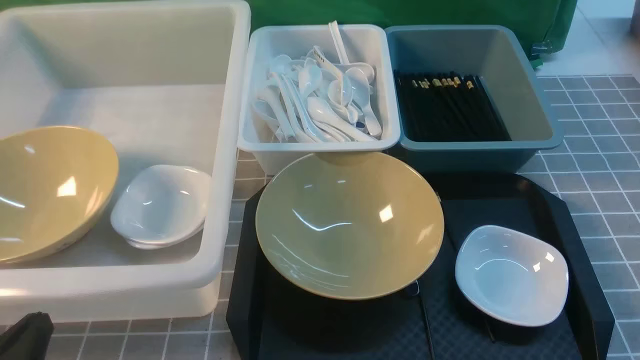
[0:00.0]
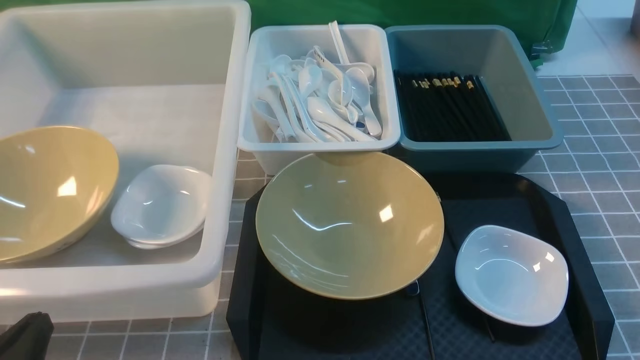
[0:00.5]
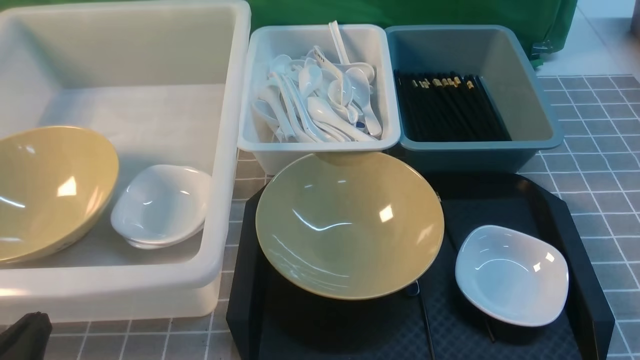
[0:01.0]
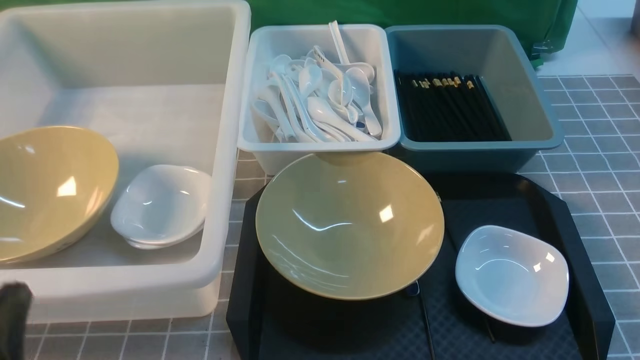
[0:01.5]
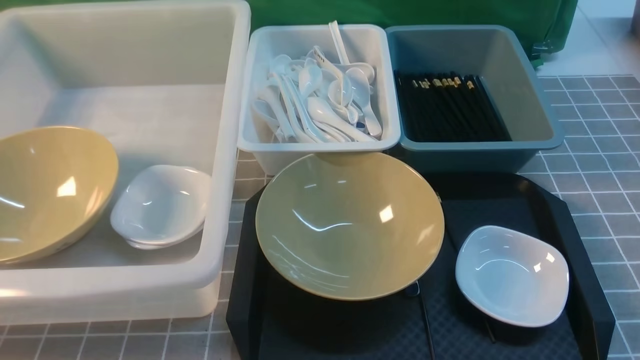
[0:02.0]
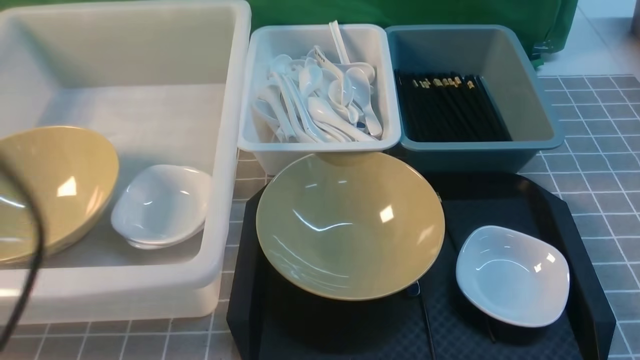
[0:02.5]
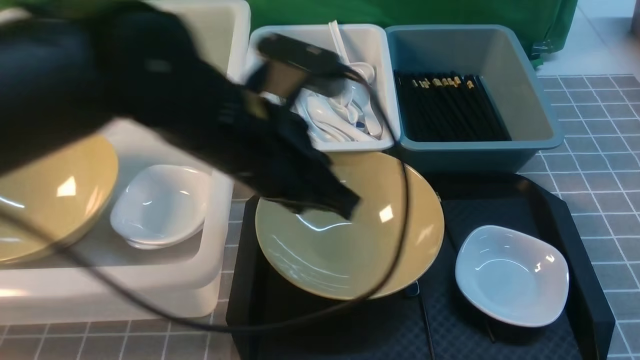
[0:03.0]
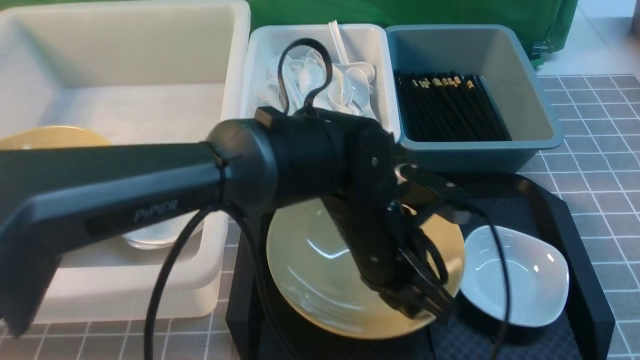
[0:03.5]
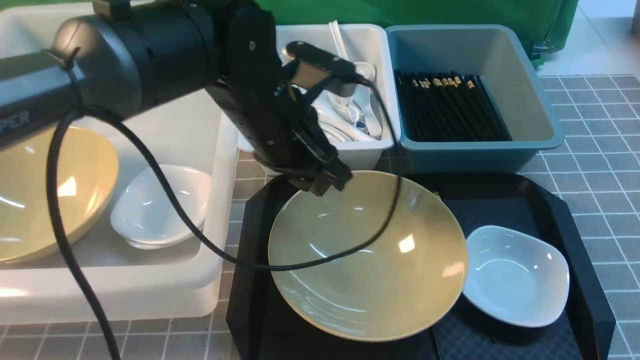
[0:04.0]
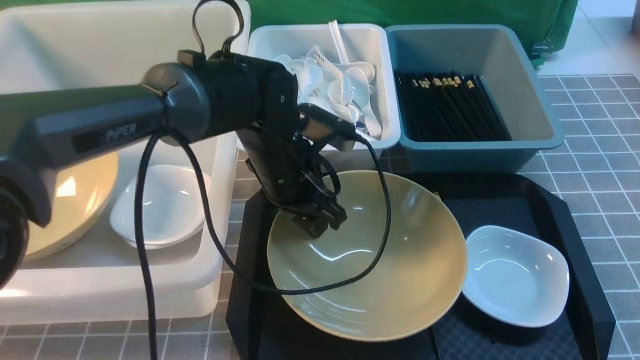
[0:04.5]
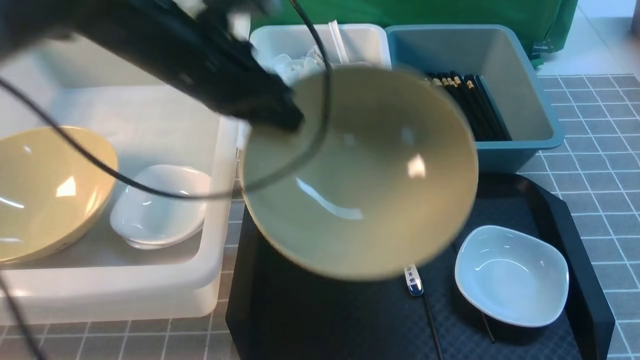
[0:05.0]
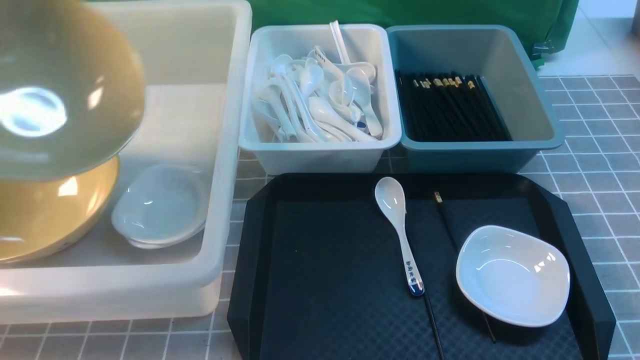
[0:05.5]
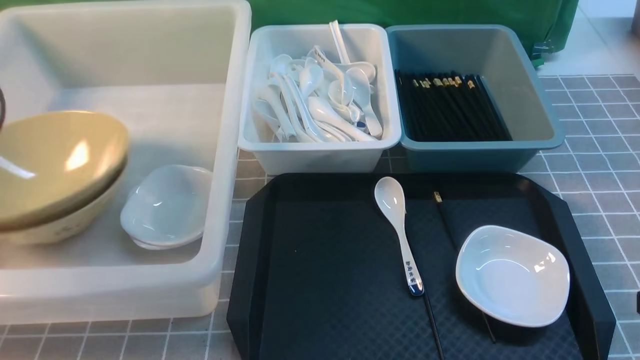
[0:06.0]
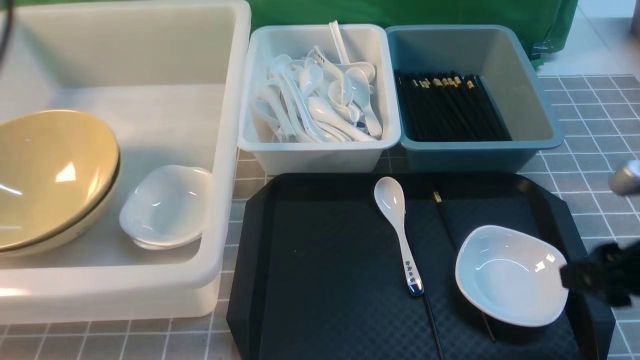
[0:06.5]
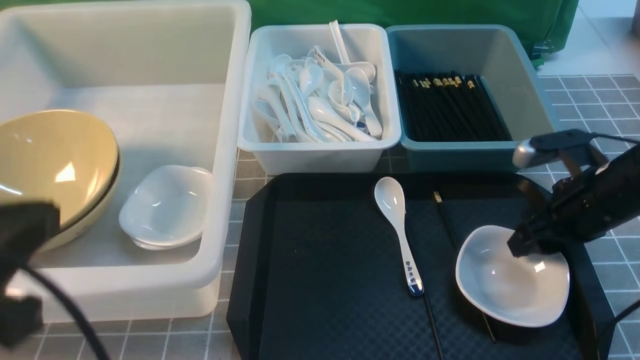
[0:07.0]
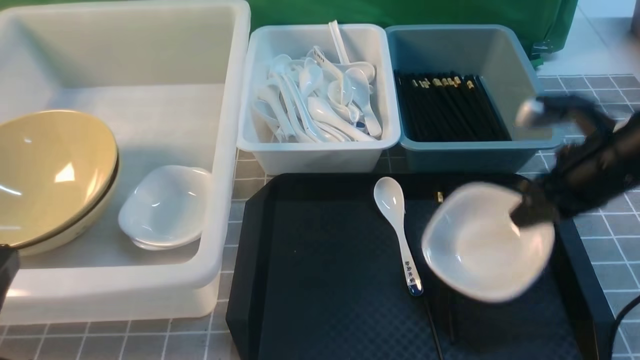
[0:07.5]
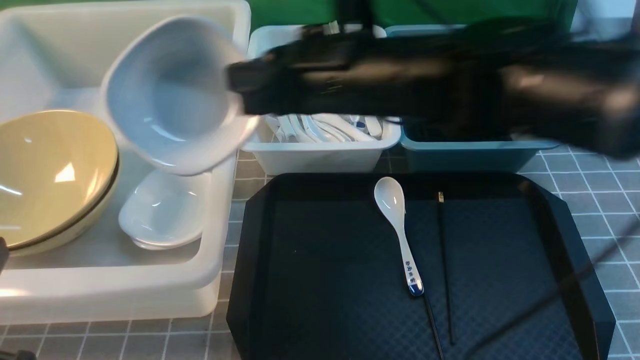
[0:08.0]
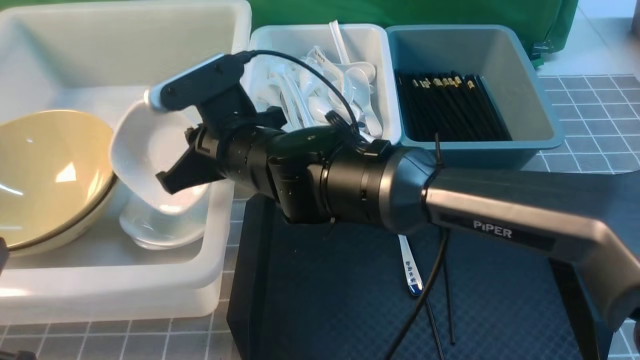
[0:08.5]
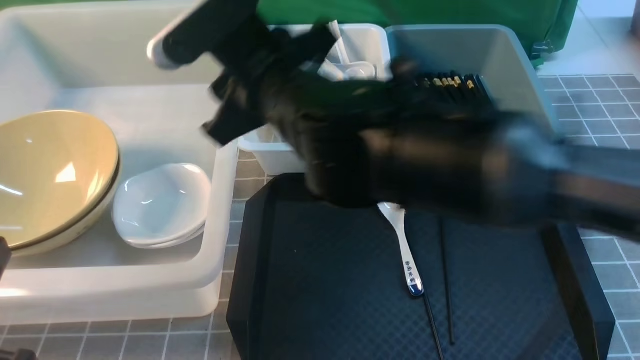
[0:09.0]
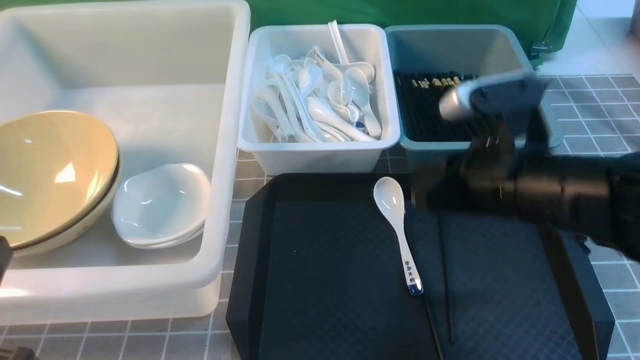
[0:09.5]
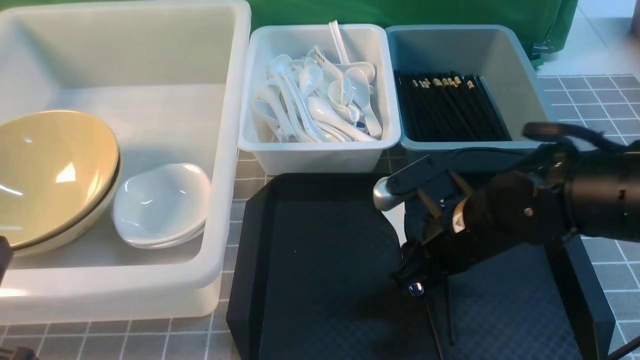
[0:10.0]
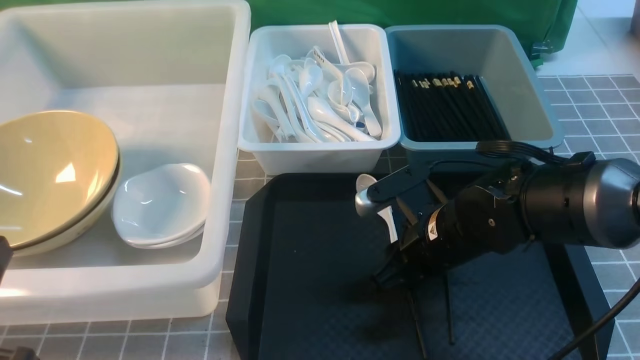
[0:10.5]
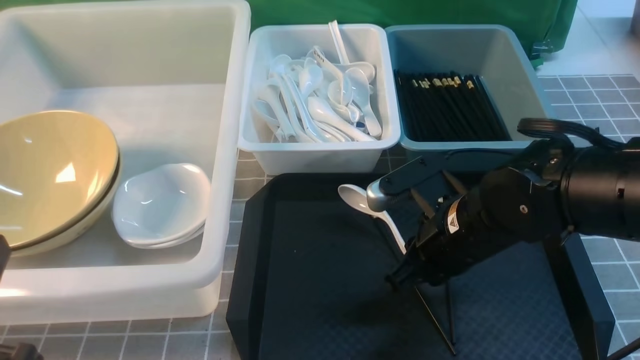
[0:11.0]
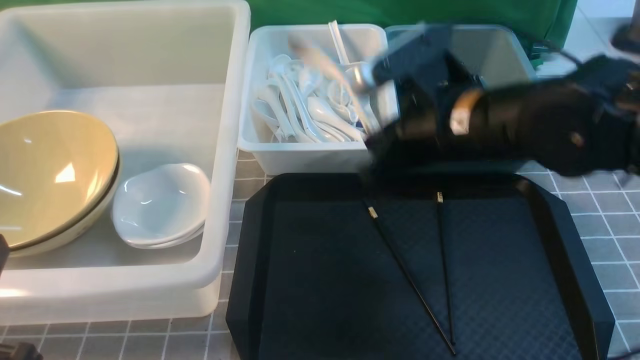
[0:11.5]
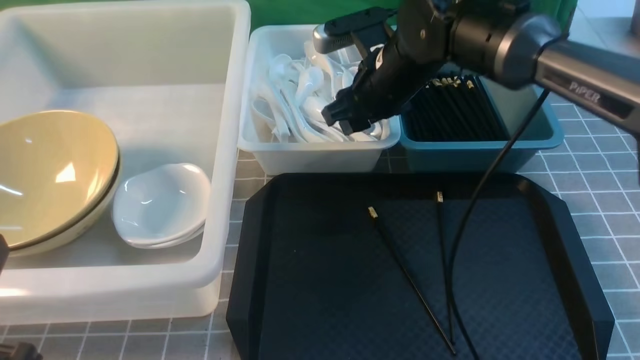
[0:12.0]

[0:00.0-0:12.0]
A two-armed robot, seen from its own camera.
Task of the whole recording: on grey table put chopsticks spoon bowls plates into blue grey white boxes.
Step, 0:00.0 to 0:04.5: use the left arm to grab the yellow noodle bowl on the left.
Step, 0:05.0 to 0:06.0: use the left arm to put the noodle bowl into the large storage box on the left.
Step, 0:06.5 to 0:07.0: use the right arm to grab the plate.
Step, 0:07.5 to 0:08.5: use the right arm to put the plate into the large storage box on the left.
Step, 0:09.0 to 0:10.5: use the right arm to grab the soup spoon in the middle.
Step, 0:11.0 to 0:12.0: use the right arm to put the soup spoon into the small storage box in the middle.
0:00.0 to 0:02.0: The left gripper moves upward, roughly 10 cm.
0:02.0 to 0:04.0: The left gripper shifts some 35 cm forward and to the right, and opens. The right gripper is displaced forward by roughly 5 cm.
0:04.0 to 0:06.0: The left gripper goes roughly 40 cm to the left, and closes, then opens again.
0:06.0 to 0:08.0: The right gripper moves to the left and forward, roughly 35 cm, and opens, then closes once more. The left gripper heads backward and to the right, covering about 30 cm, and closes its fingers.
0:08.0 to 0:10.0: The right gripper is displaced downward and to the right by approximately 20 cm, and opens up.
0:10.0 to 0:12.0: The right gripper is displaced forward and upward by roughly 15 cm, and closes, then reopens.

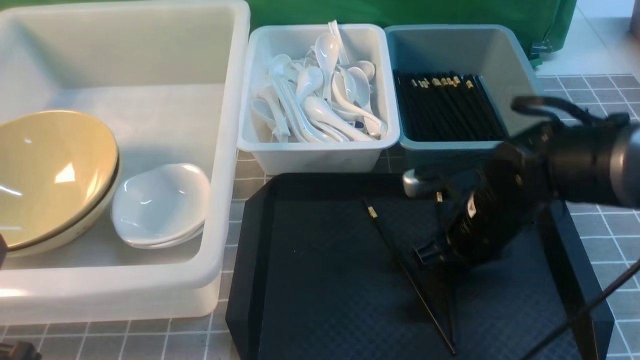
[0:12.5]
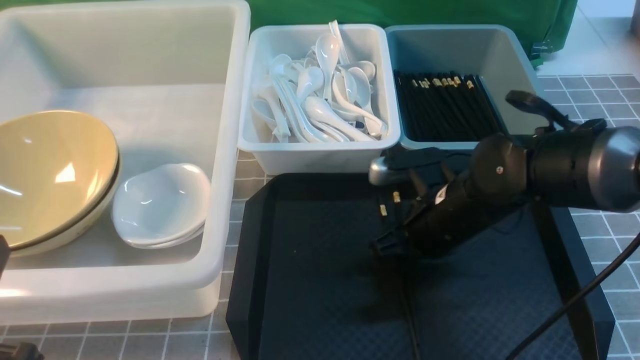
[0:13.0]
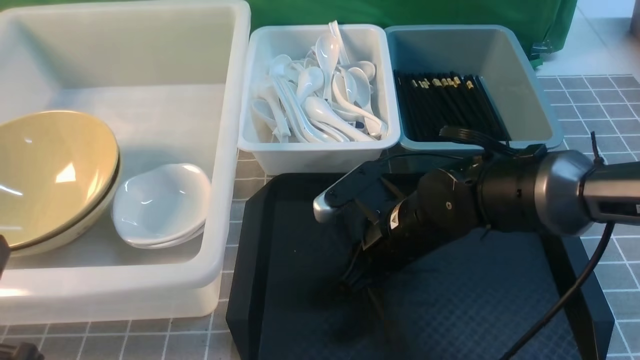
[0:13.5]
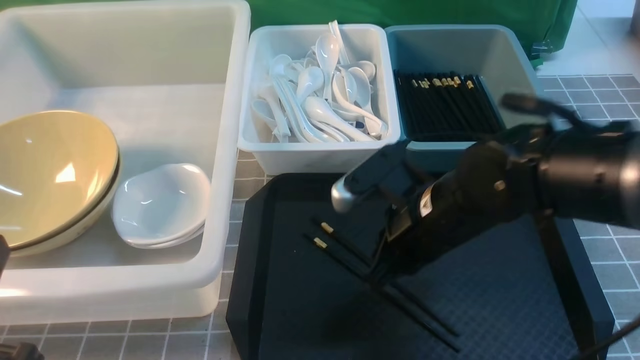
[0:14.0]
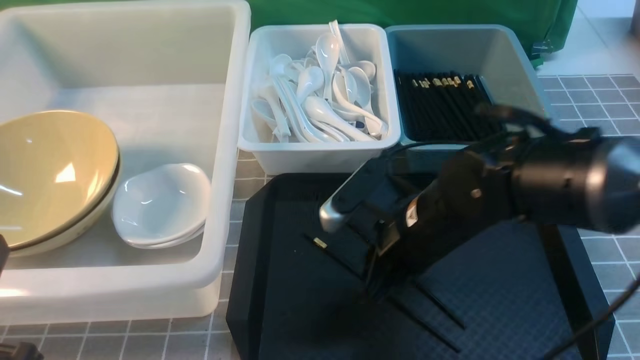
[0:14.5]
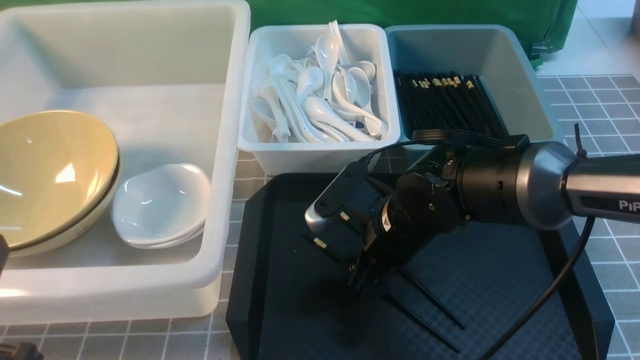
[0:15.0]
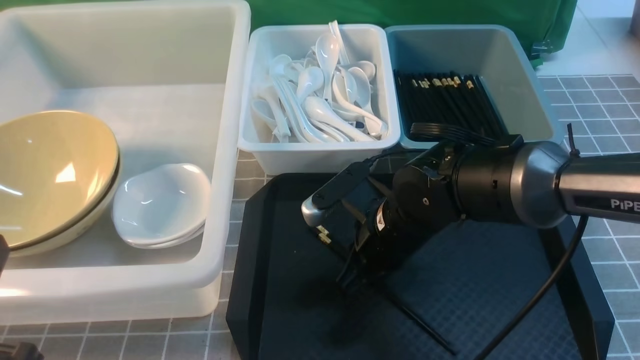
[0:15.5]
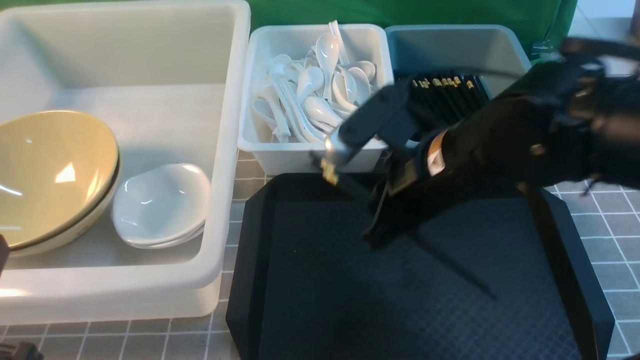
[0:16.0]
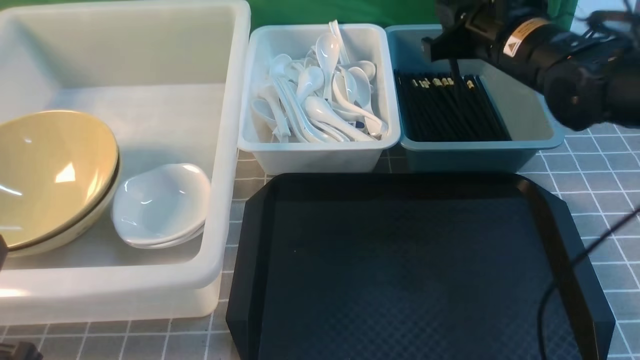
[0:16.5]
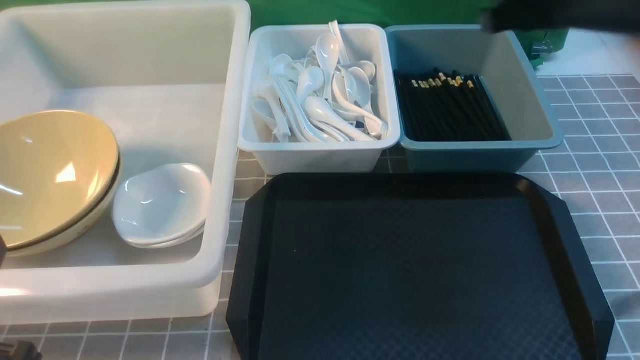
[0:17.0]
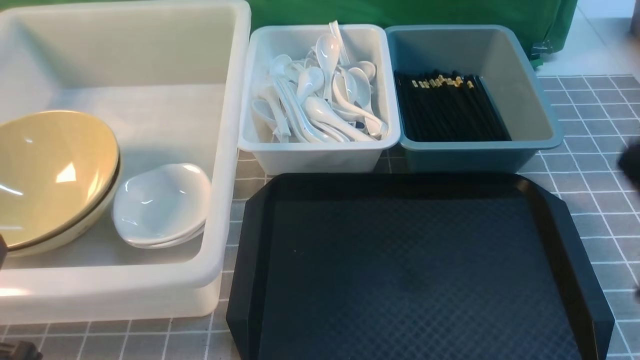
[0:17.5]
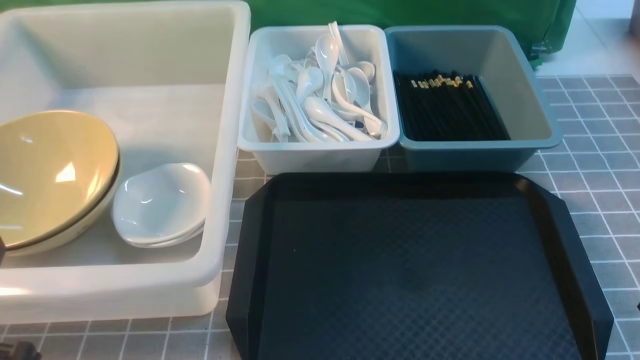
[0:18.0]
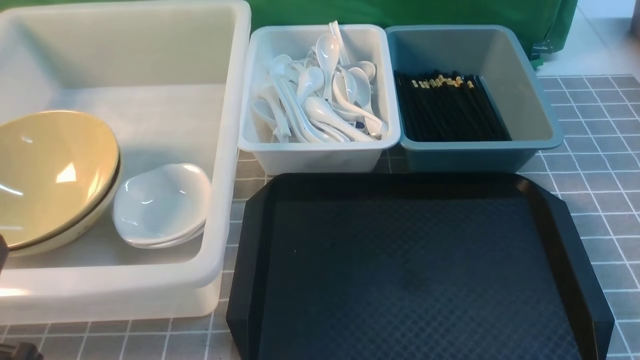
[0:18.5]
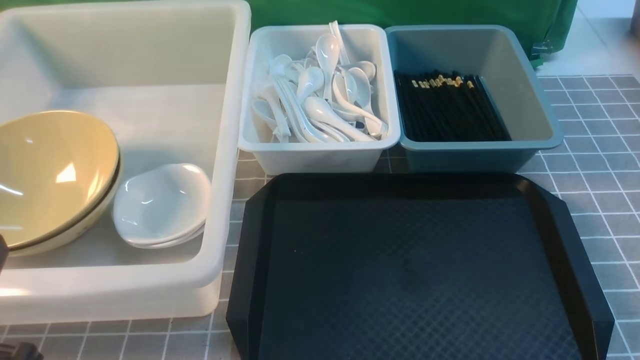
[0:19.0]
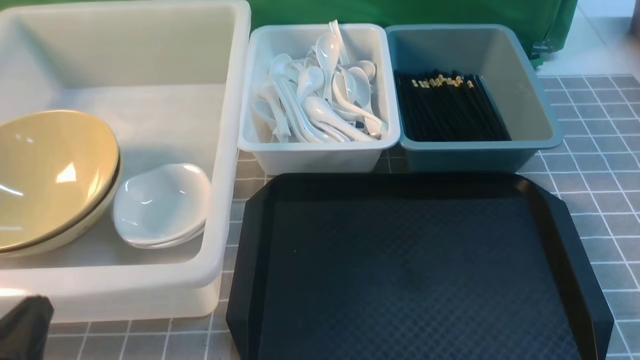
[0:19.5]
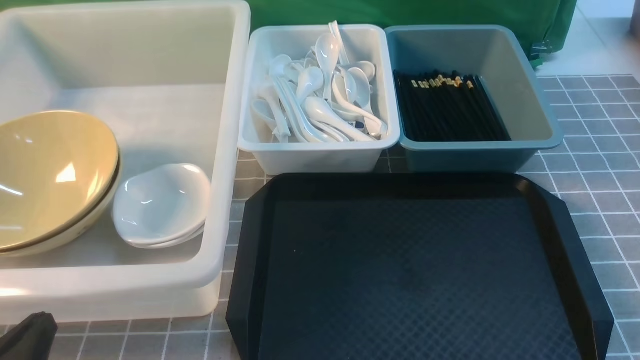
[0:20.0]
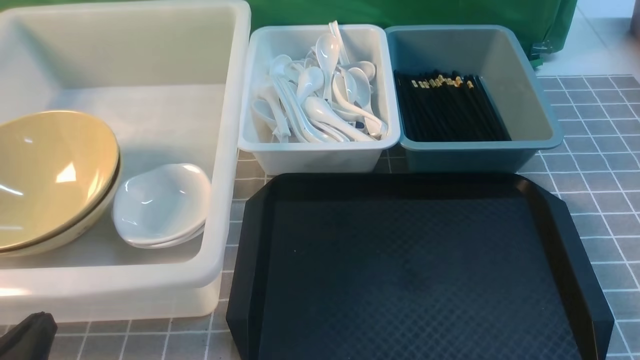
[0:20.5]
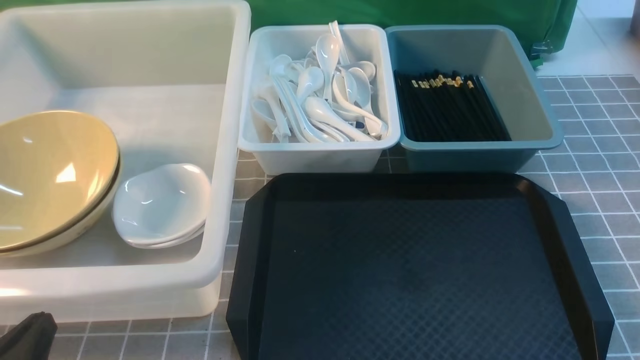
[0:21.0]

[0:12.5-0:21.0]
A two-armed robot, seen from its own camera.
Task of the whole recording: on grey table put chopsticks spoon bowls plates into blue grey white boxes.
Step, 0:12.5 to 0:15.5: use the right arm to grab the chopsticks.
Step, 0:16.0 to 0:16.5: use the right arm to put the chopsticks into the small storage box on the right.
0:12.5 to 0:14.5: The right gripper travels to the left by approximately 5 cm, and closes, then reopens.
0:14.5 to 0:16.5: The right gripper shifts about 20 cm forward, to the right and upward.
0:16.5 to 0:19.0: The right gripper travels backward by approximately 35 cm, and closes its fingers.
0:19.0 to 0:21.0: The left gripper is displaced downward by some 10 cm.
